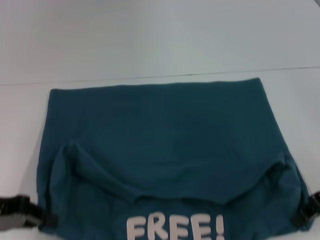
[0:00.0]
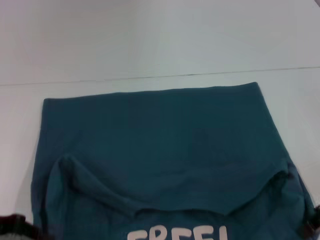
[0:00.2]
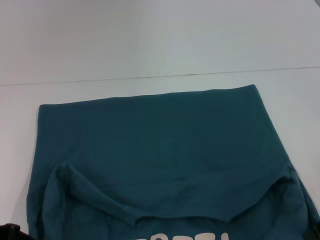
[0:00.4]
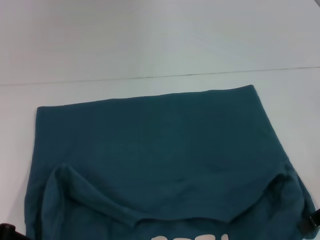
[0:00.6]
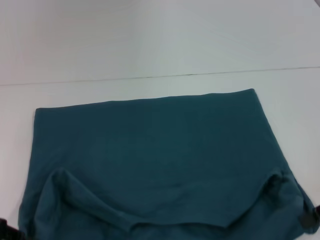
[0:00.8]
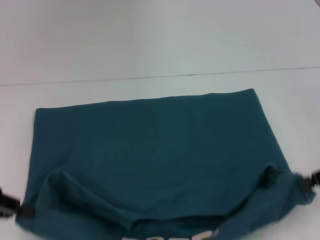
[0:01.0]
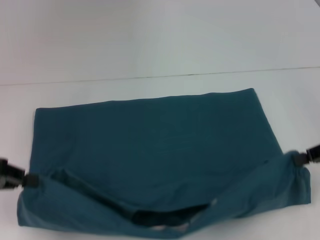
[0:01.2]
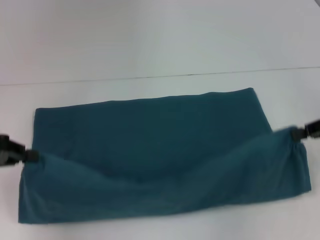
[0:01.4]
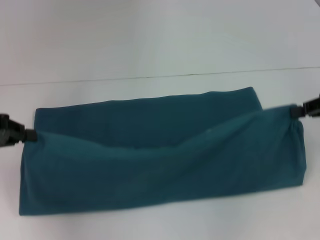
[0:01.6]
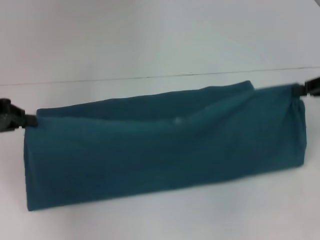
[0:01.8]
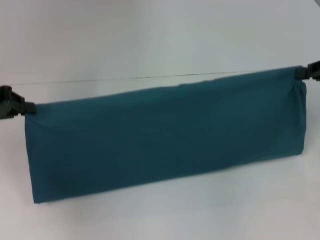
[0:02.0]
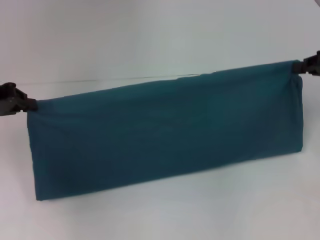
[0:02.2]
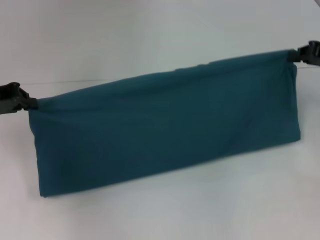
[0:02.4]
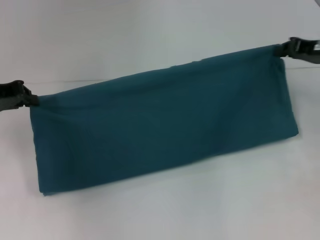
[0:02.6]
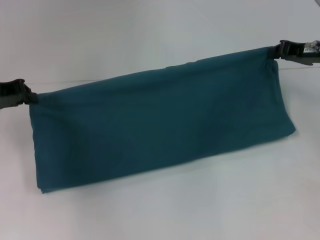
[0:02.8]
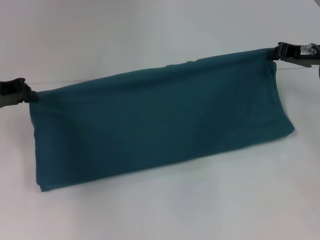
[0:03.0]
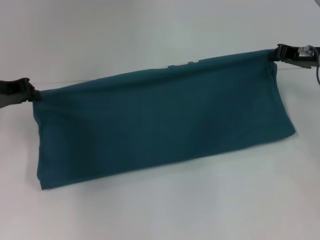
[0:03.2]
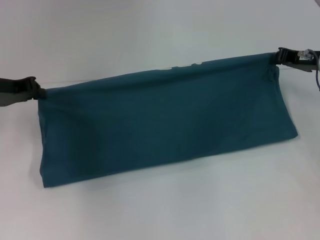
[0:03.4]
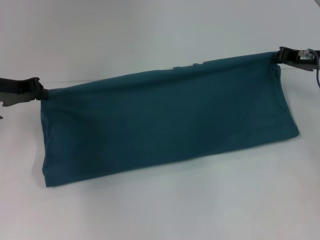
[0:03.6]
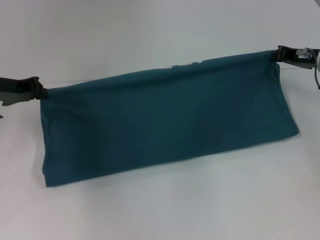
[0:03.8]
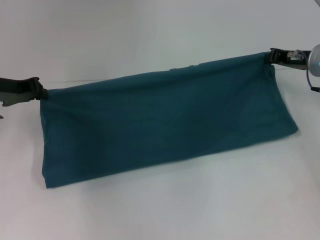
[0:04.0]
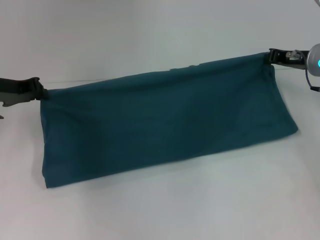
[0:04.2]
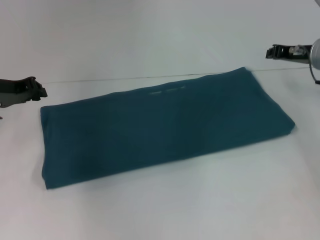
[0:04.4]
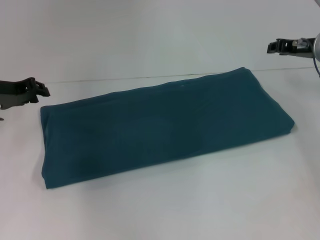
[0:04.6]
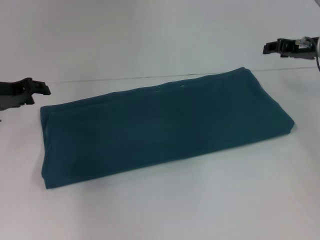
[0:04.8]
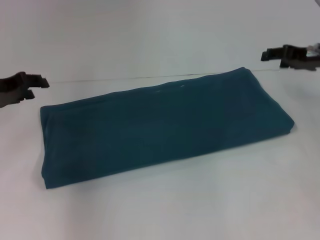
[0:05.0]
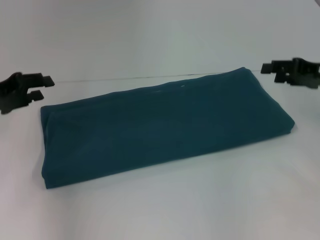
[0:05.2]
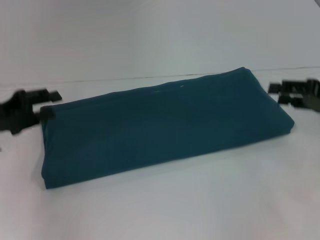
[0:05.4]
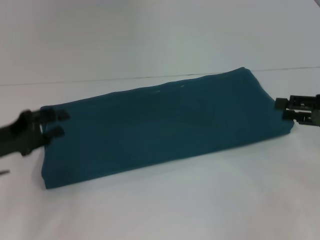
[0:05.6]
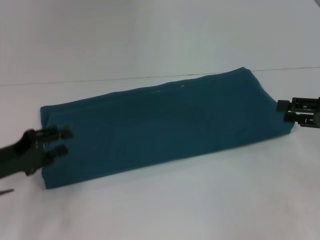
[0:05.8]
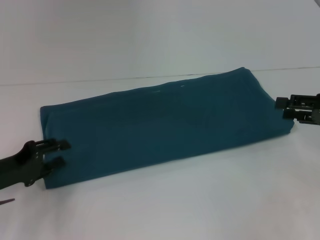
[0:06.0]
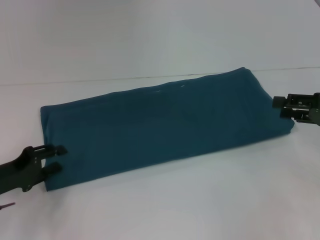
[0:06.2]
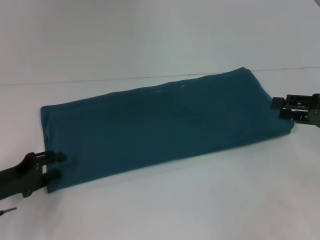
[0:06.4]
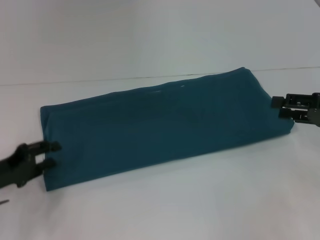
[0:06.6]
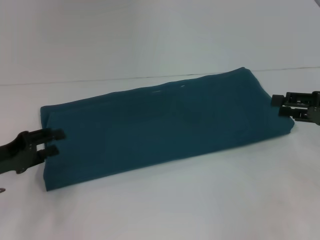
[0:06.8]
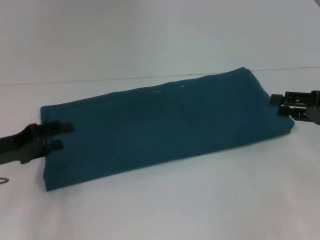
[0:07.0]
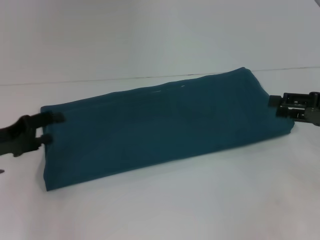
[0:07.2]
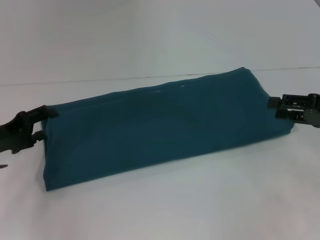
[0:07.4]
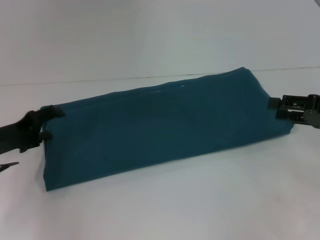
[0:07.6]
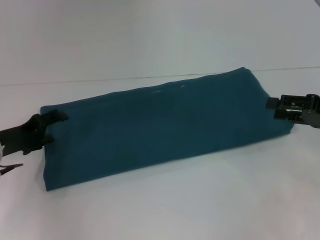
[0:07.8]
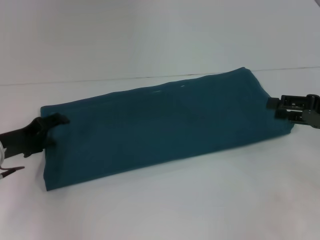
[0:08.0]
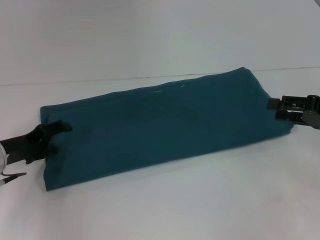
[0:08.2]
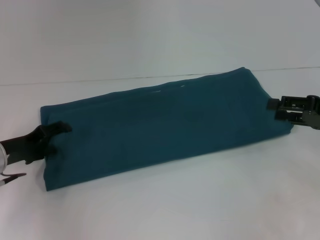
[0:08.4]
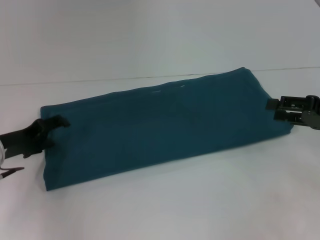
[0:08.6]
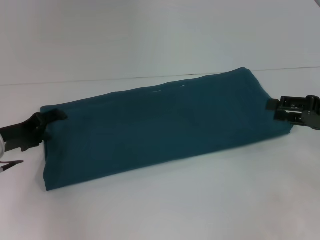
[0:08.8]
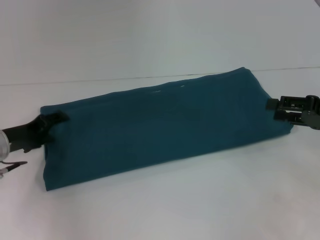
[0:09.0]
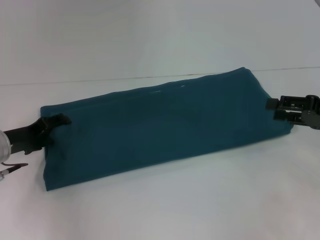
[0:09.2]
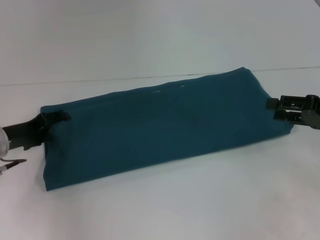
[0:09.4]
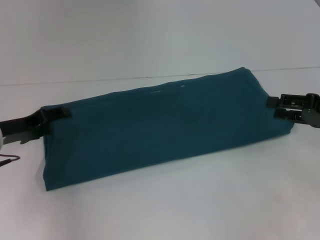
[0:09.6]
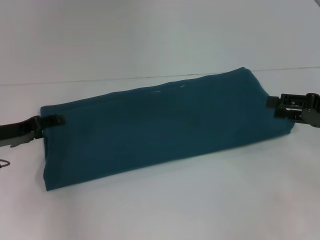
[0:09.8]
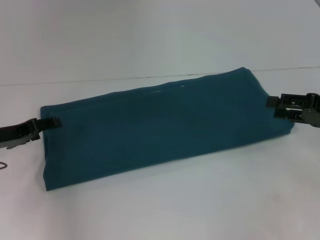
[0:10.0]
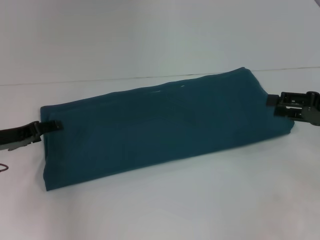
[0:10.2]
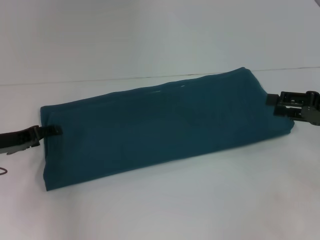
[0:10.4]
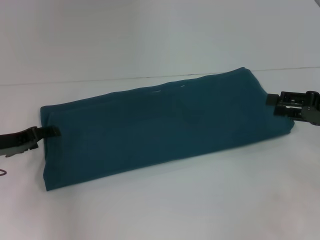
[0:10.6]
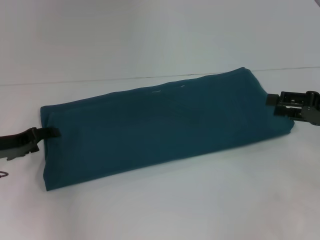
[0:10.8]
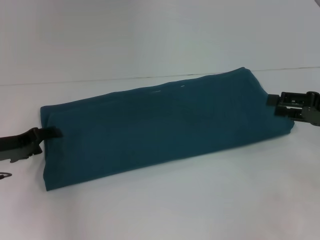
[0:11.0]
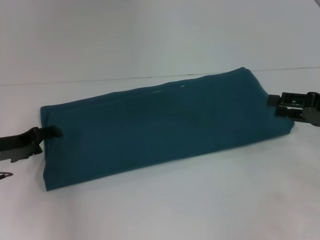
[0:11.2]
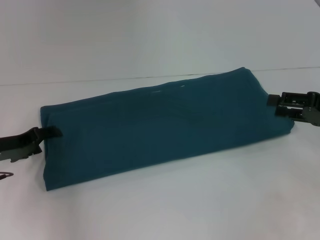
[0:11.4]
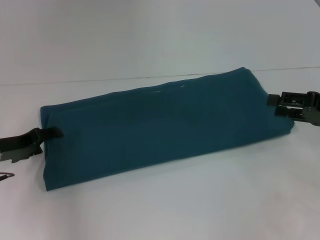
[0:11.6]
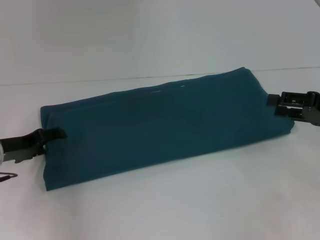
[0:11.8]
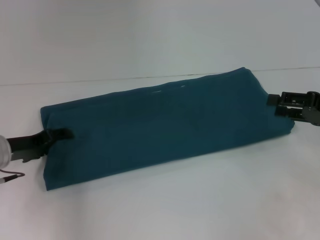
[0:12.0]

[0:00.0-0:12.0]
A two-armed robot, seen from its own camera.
Step, 0:00.4 to 0:04.4: Fold the clothes to the right.
0:00.0 to 0:01.6: The left gripper heads forward, covering approximately 5 cm; the right gripper moves to the right, some 5 cm.
0:01.6 to 0:03.0: The right gripper moves forward and to the left, about 10 cm. The left gripper heads forward, covering roughly 10 cm.
0:03.0 to 0:04.4: The grippers stay close to where they were, moving slightly.
0:04.4 to 0:06.0: The left gripper is displaced backward and downward by about 15 cm, and opens up. Meanwhile the right gripper is displaced backward and to the right by some 15 cm, and opens up.
0:06.0 to 0:07.6: The left gripper is displaced forward by approximately 5 cm, and opens its fingers.
0:07.6 to 0:09.0: The grippers make only small movements.
0:09.0 to 0:12.0: The grippers stay close to where they were, moving slightly.

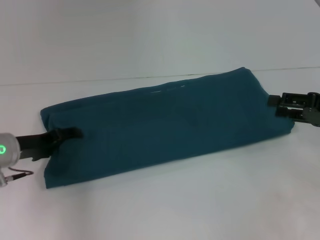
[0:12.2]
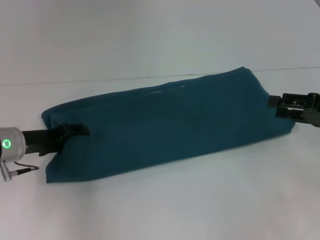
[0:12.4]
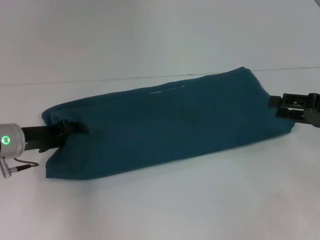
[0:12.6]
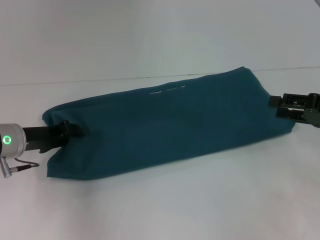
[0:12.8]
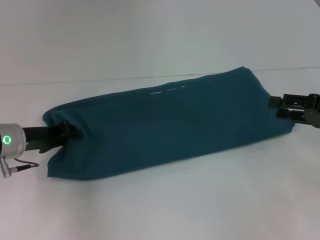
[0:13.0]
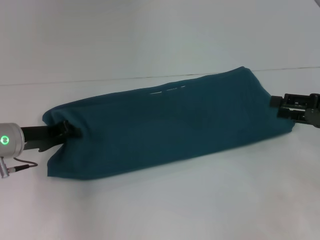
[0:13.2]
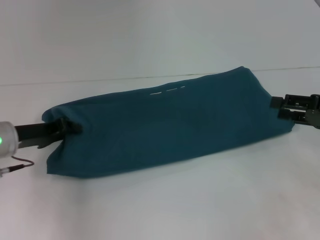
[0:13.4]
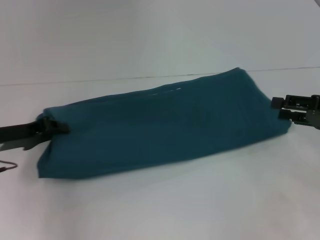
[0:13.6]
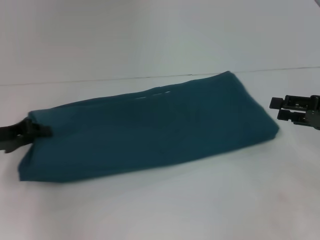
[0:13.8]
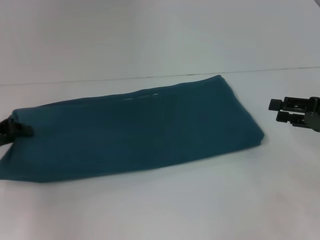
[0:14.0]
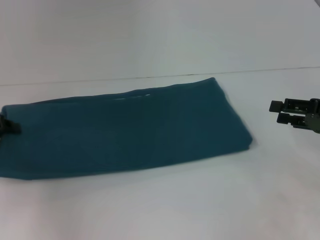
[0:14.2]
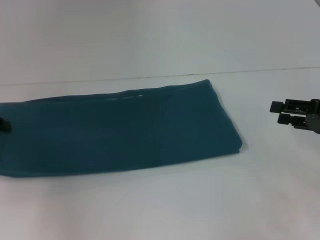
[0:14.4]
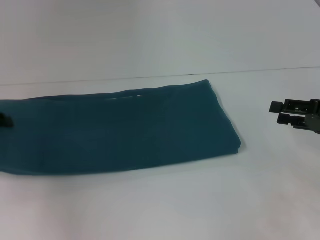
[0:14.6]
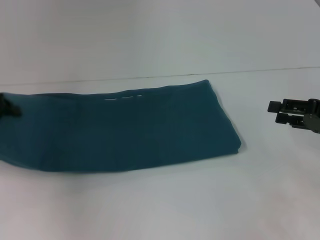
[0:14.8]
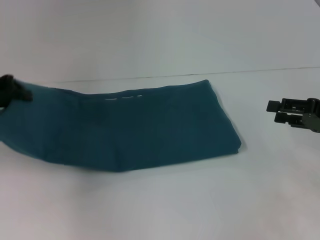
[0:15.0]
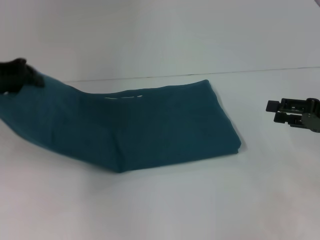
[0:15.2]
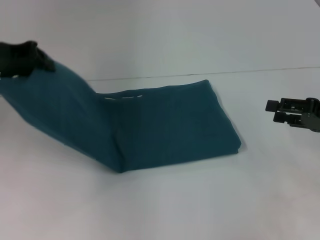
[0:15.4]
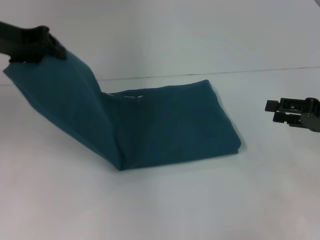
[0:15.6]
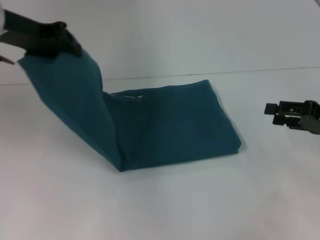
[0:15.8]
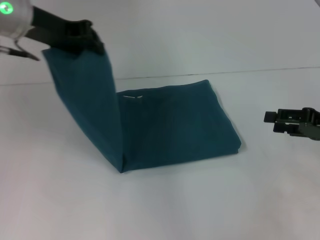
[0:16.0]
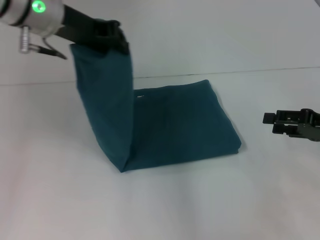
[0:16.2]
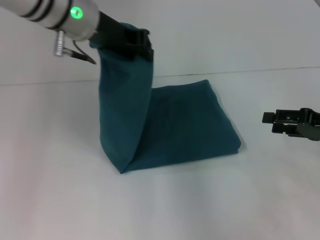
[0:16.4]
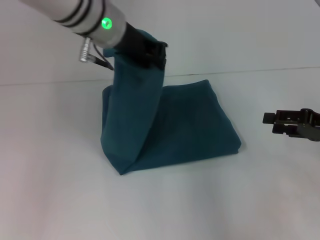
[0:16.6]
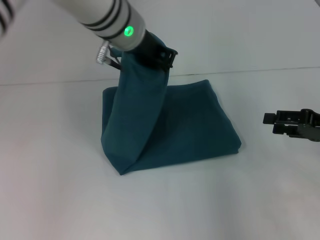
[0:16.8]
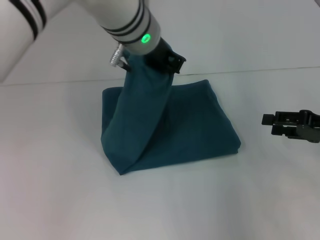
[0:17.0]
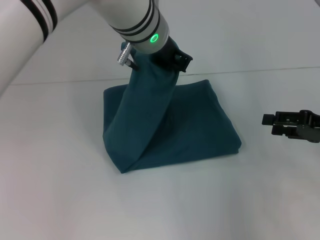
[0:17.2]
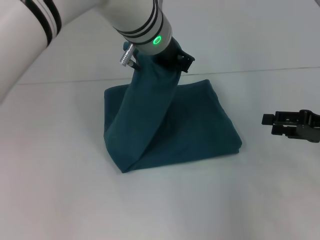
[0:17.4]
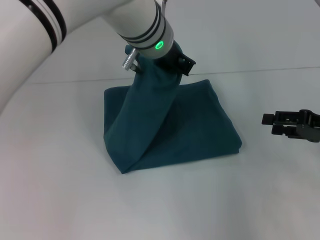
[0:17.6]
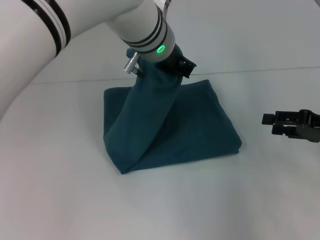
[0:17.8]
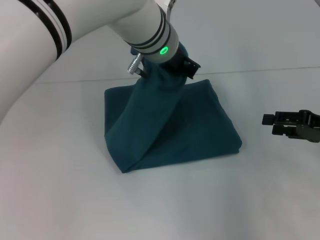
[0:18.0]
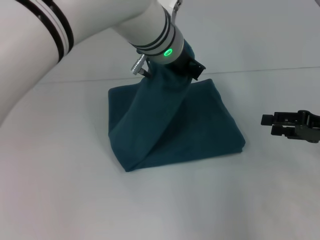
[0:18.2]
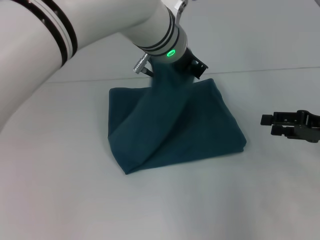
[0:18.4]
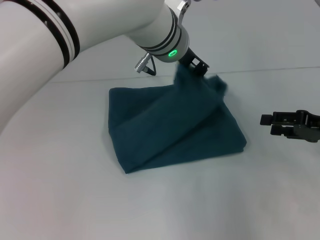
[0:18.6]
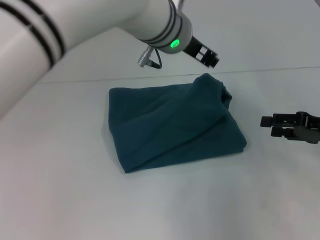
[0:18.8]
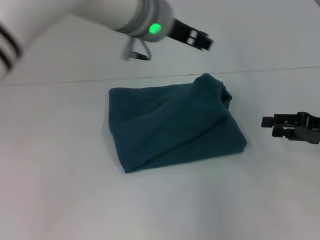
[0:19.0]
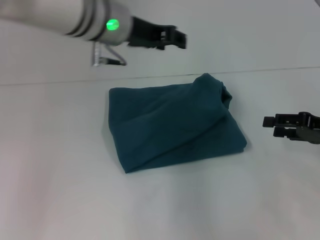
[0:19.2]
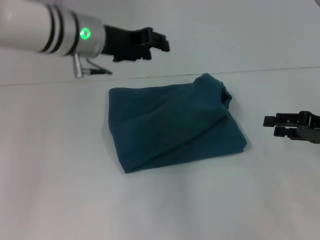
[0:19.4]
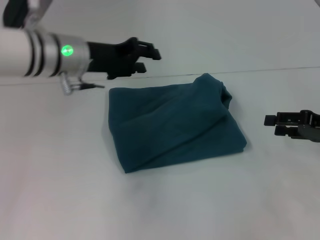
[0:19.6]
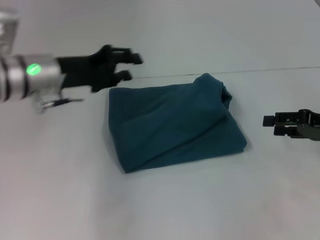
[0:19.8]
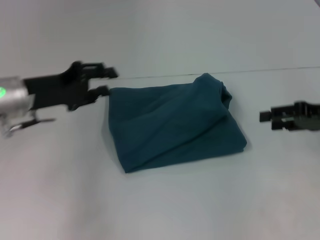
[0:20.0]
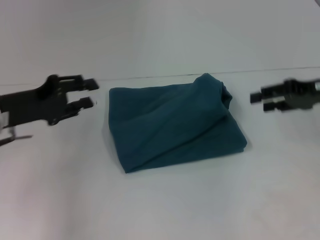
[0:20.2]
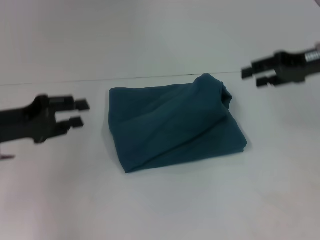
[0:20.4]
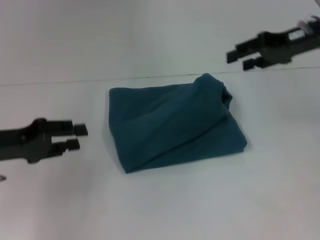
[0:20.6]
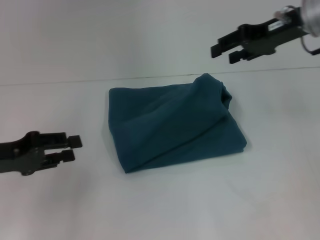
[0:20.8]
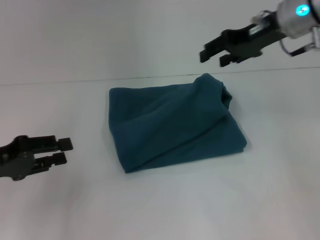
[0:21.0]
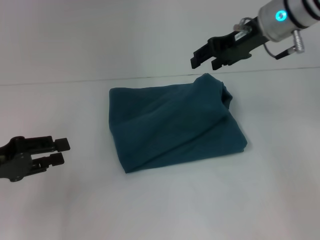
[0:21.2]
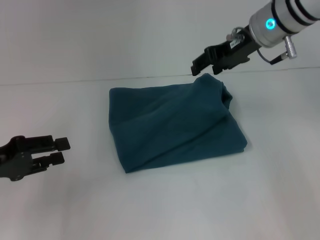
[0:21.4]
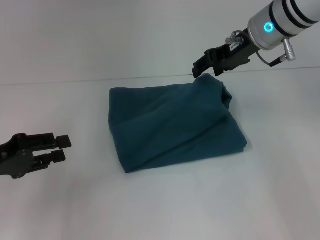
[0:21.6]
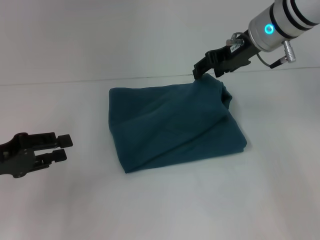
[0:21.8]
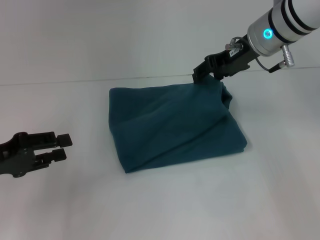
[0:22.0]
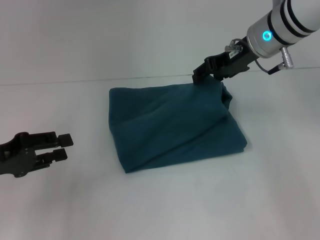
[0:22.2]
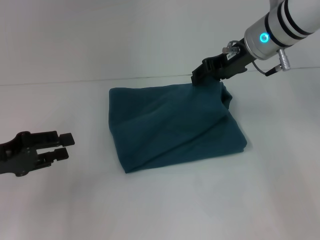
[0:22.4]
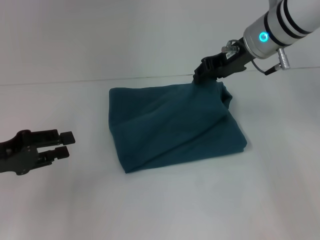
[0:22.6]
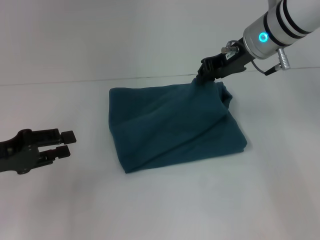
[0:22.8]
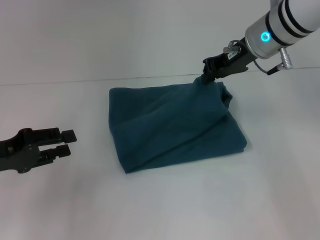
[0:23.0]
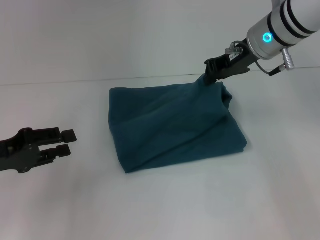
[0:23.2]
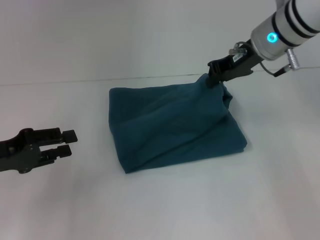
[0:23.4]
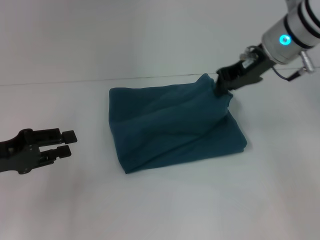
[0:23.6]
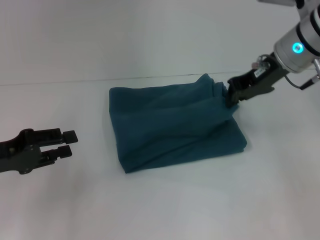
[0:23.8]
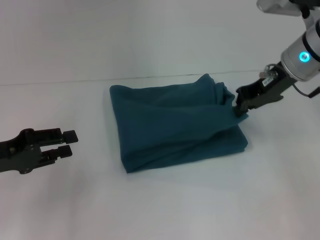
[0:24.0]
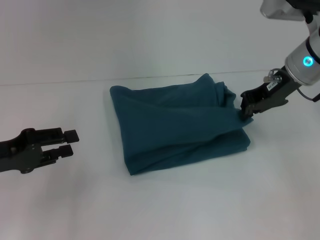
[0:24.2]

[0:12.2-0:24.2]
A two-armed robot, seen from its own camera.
Step, 0:12.2 to 0:18.6: Fold the clothes to the left.
0:12.2 to 0:13.8: The left gripper moves some 5 cm, and closes up.
0:13.8 to 0:15.2: The left gripper shifts some 10 cm upward.
0:15.2 to 0:16.6: The left gripper moves to the right, some 20 cm.
0:16.6 to 0:18.2: The left gripper shifts about 10 cm to the right.
0:18.2 to 0:19.8: The left gripper travels to the left by roughly 20 cm, and opens up.
0:19.8 to 0:21.2: The left gripper heads to the left and backward, covering roughly 15 cm. The right gripper shifts some 25 cm to the left, upward and forward.
0:21.2 to 0:22.6: There are only small adjustments of the grippers.
0:22.6 to 0:24.2: The right gripper shifts about 5 cm to the right, and closes.
